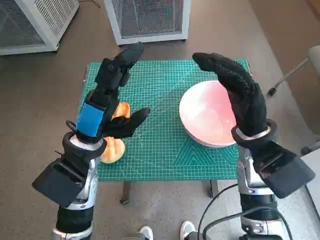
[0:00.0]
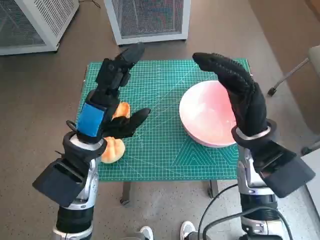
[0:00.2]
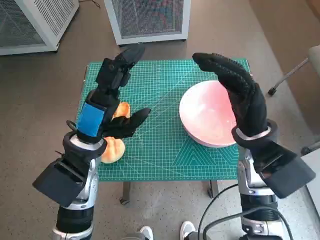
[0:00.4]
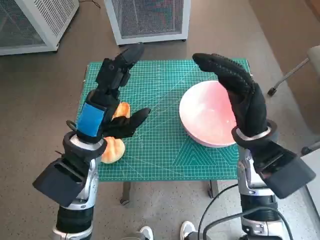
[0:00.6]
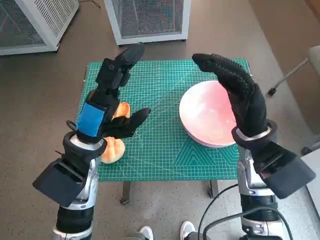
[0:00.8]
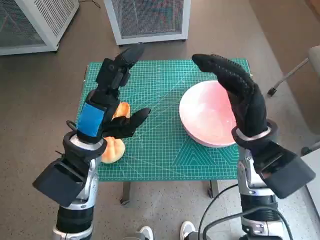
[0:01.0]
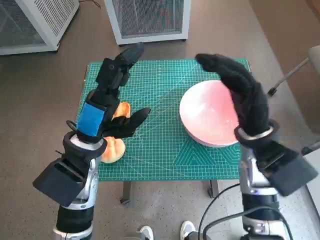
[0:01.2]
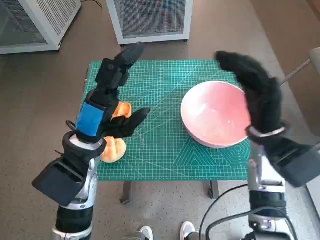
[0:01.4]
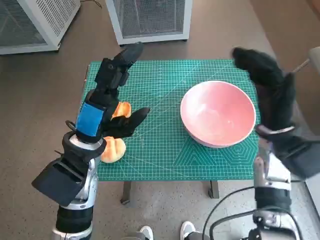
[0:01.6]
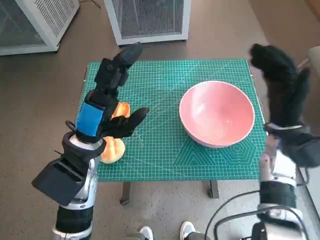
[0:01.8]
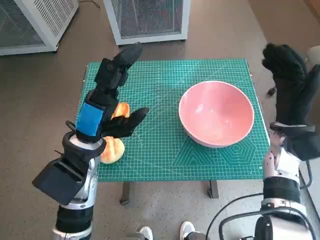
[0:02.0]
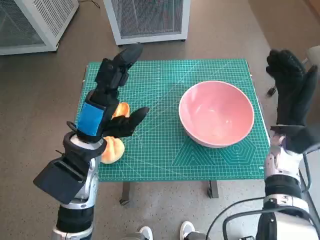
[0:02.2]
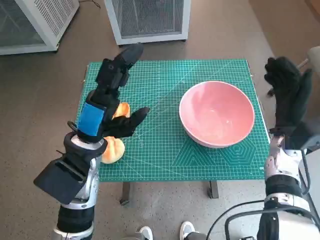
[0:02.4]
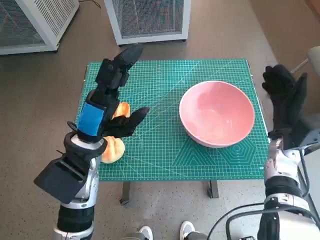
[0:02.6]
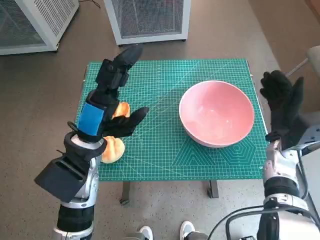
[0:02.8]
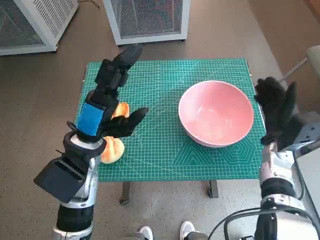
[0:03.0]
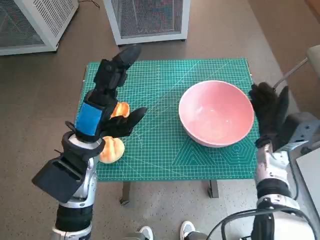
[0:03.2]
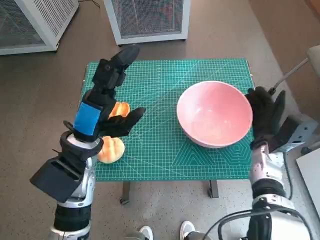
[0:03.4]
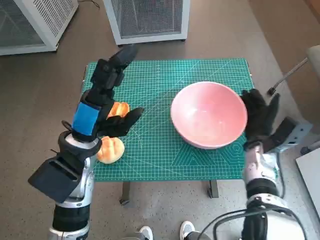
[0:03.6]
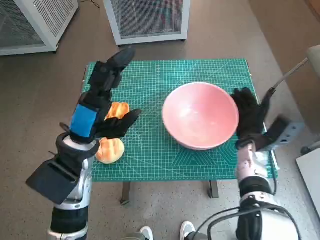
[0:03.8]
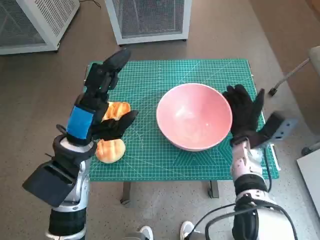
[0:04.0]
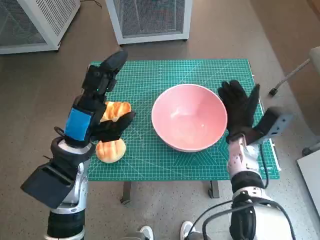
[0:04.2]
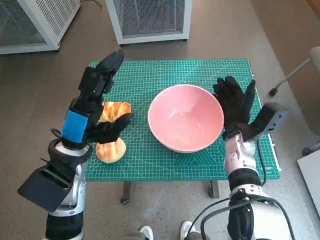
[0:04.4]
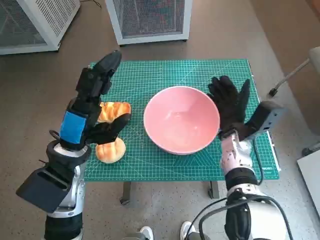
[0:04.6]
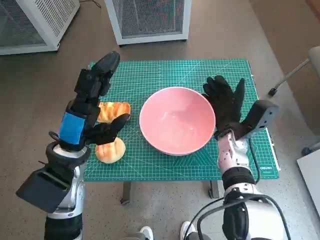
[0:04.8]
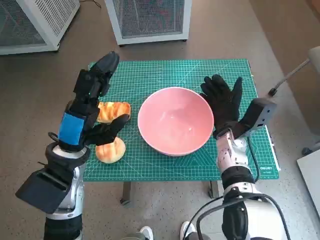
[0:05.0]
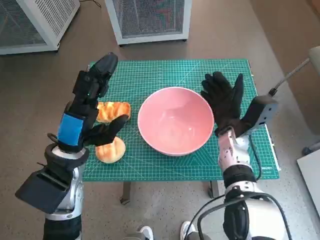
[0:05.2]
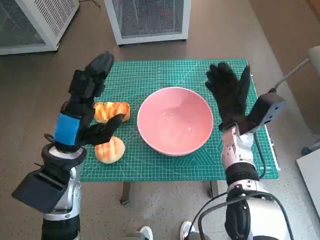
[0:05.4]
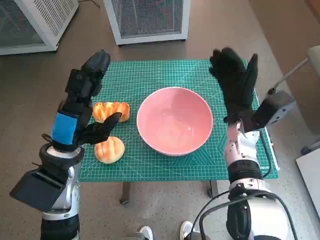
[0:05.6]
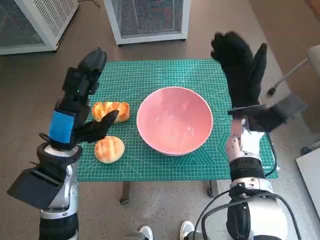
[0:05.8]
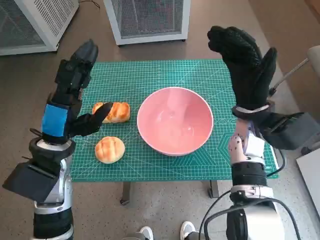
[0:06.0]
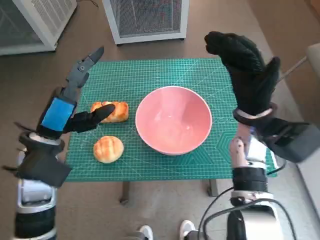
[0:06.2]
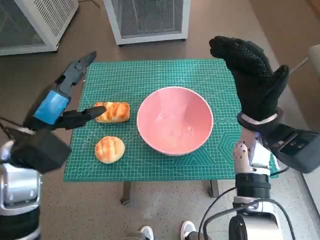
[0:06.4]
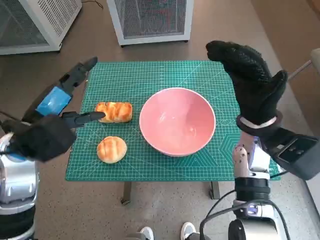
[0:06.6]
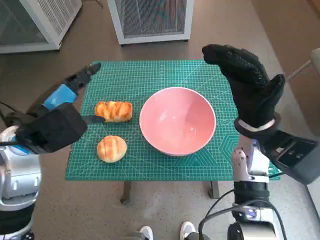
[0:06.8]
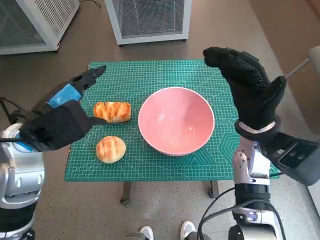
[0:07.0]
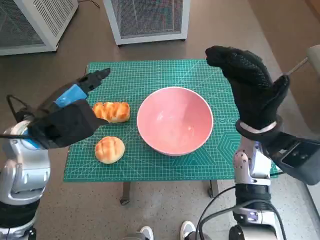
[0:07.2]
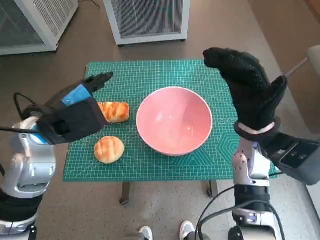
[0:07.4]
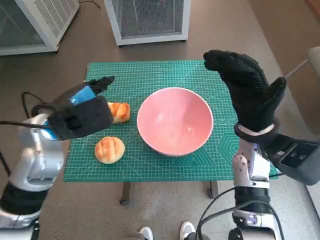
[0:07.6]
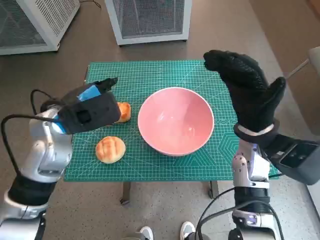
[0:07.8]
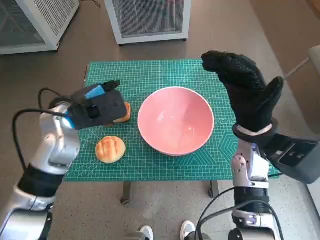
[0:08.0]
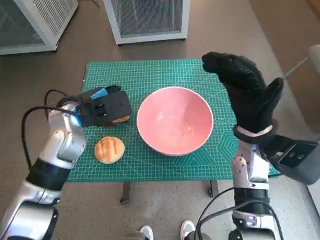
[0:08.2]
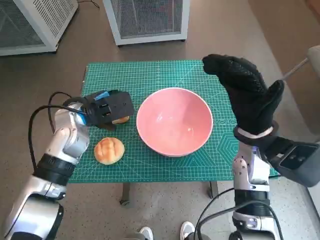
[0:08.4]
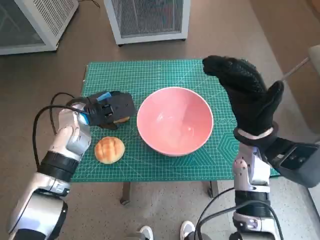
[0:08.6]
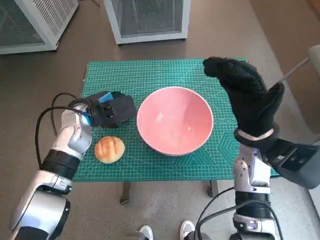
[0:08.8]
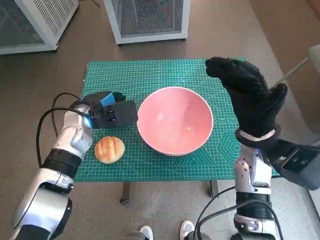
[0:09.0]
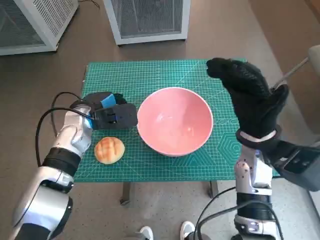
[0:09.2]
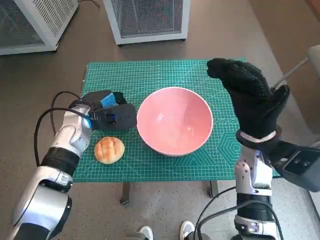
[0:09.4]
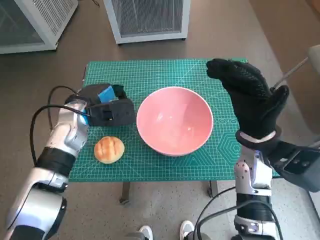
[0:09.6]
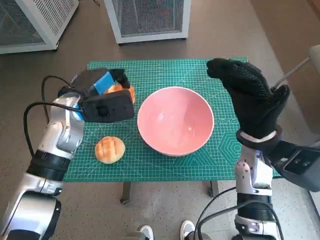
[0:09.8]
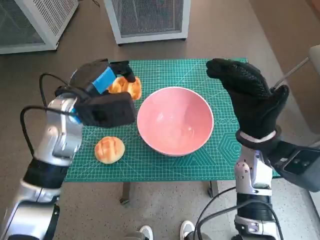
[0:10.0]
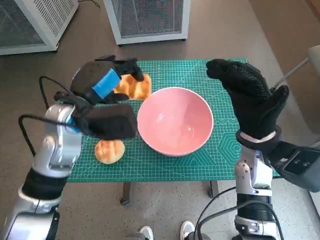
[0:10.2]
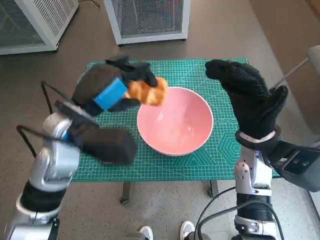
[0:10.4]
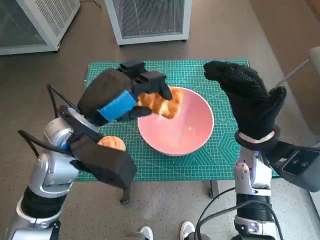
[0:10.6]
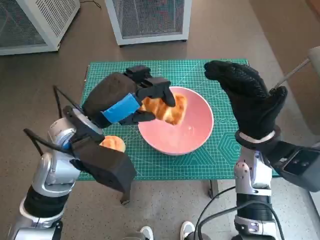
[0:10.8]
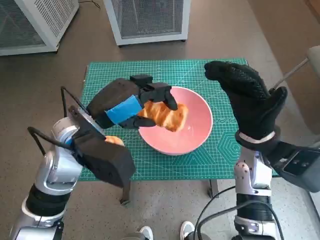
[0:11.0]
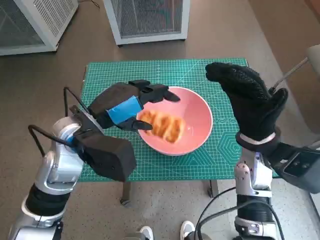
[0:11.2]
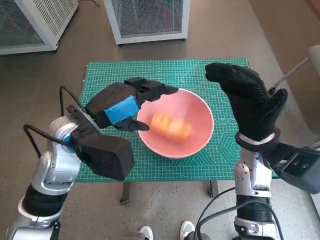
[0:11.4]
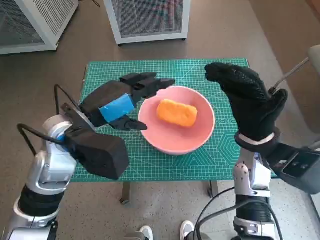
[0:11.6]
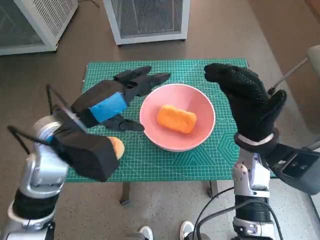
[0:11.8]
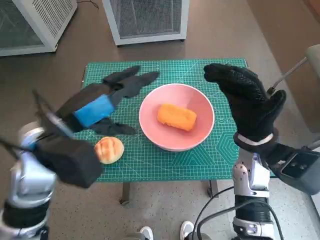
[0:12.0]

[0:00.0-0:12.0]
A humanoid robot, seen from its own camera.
Task of the whole recording: Push the bowl into the center of the table and put the bread into the bowl.
Step, 0:00.0 to 0:05.2: Move the pink bowl to the center of table with right hand.
Step, 0:05.4 to 0:09.2: Grasp the long bread with left hand.
Step, 0:09.4 to 0:11.2: Place the long bread in pink bowl with left hand.
0:01.6 to 0:03.0: The right hand moves downward, some 10 cm.
0:03.0 to 0:04.4: The right hand travels to the left by some 10 cm.
0:04.4 to 0:06.0: The right hand is displaced upward by about 10 cm.
0:06.0 to 0:07.6: The left hand ends up roughly 5 cm from where it was.
0:07.6 to 0:09.0: The left hand heads downward and forward, covering about 10 cm.
0:09.0 to 0:10.4: The left hand moves upward and backward, roughly 10 cm.

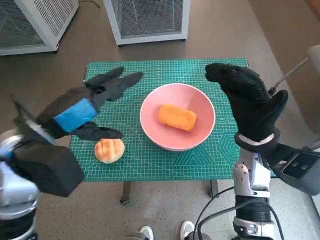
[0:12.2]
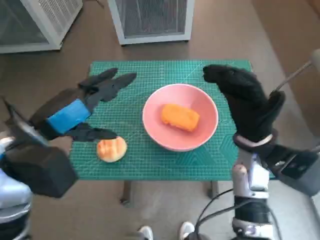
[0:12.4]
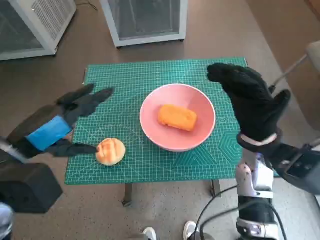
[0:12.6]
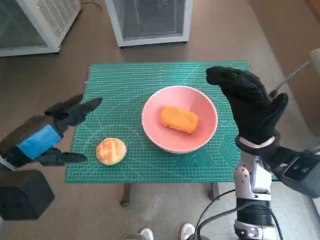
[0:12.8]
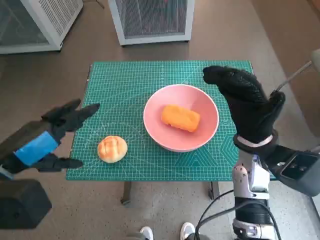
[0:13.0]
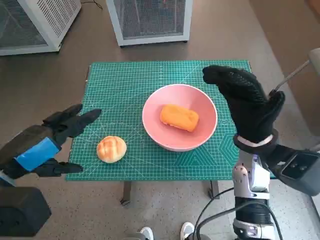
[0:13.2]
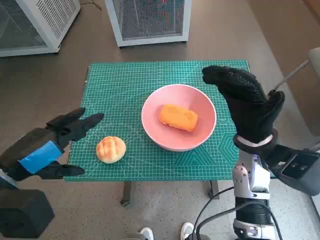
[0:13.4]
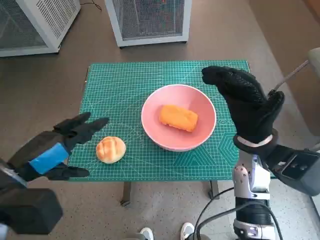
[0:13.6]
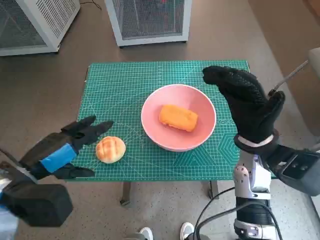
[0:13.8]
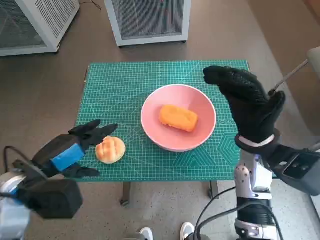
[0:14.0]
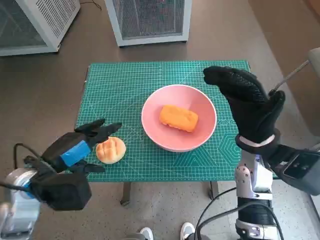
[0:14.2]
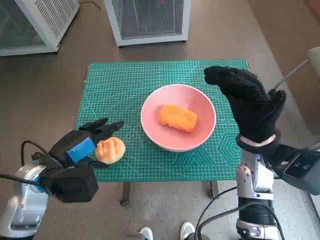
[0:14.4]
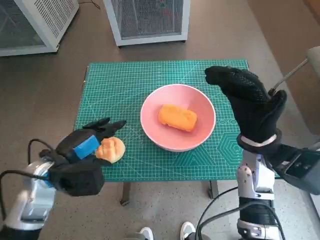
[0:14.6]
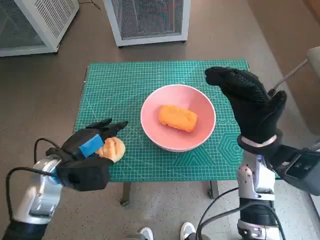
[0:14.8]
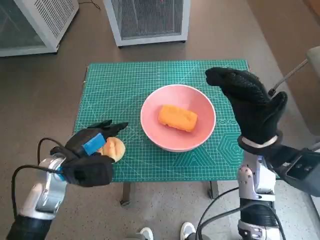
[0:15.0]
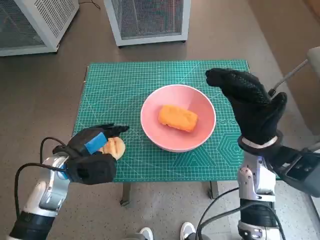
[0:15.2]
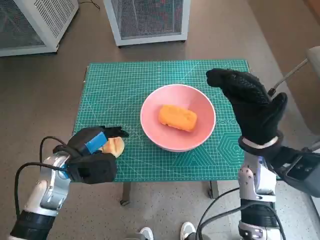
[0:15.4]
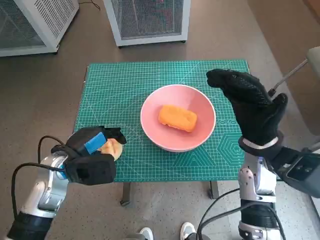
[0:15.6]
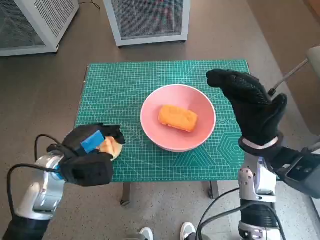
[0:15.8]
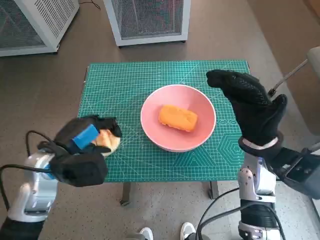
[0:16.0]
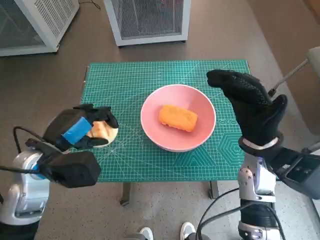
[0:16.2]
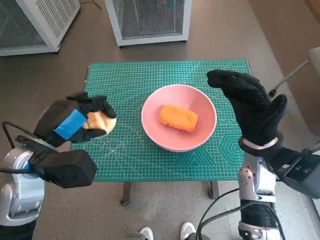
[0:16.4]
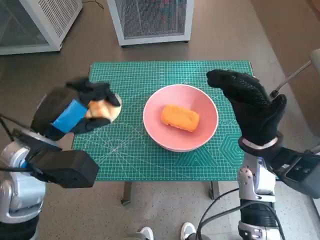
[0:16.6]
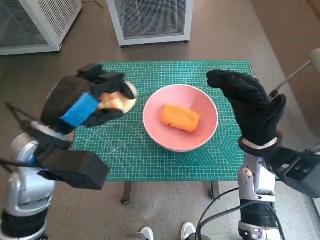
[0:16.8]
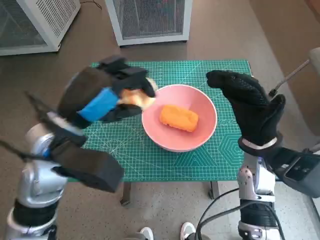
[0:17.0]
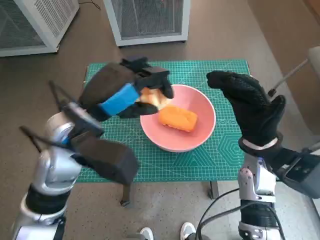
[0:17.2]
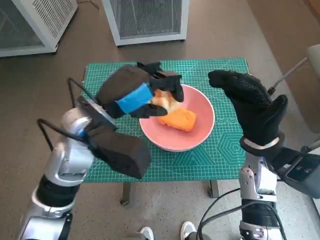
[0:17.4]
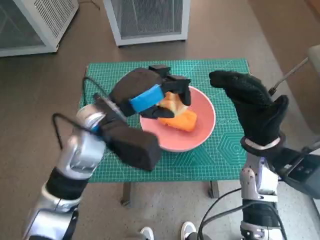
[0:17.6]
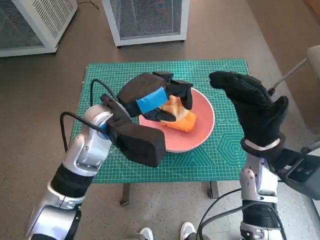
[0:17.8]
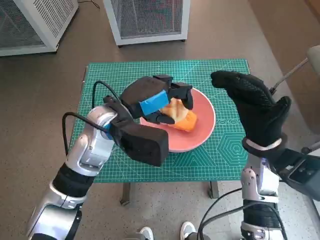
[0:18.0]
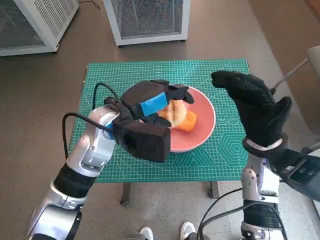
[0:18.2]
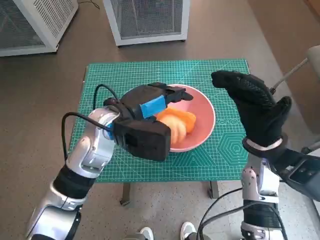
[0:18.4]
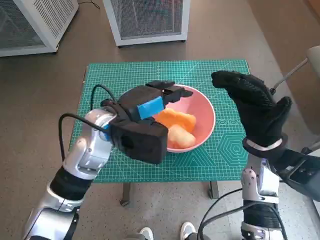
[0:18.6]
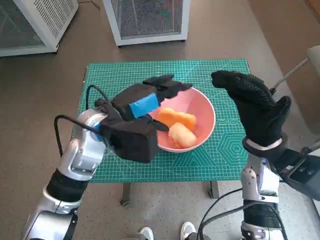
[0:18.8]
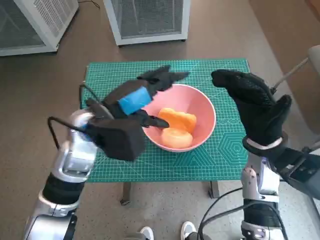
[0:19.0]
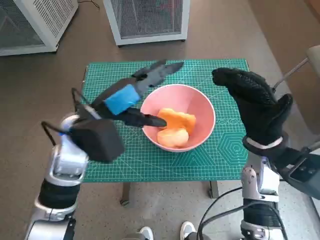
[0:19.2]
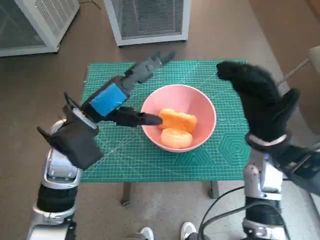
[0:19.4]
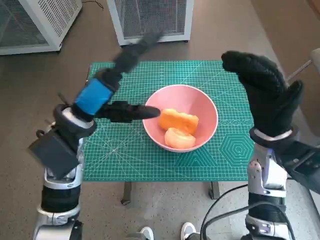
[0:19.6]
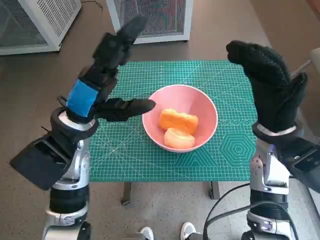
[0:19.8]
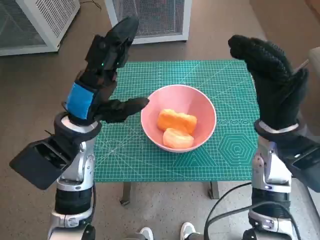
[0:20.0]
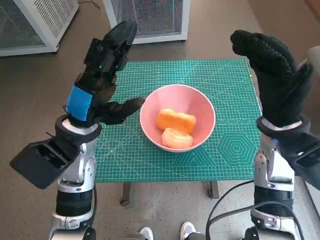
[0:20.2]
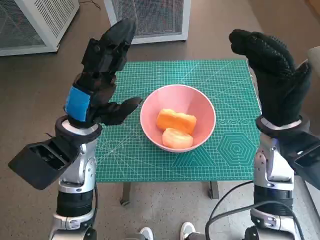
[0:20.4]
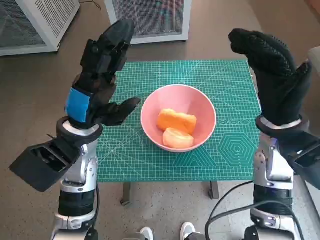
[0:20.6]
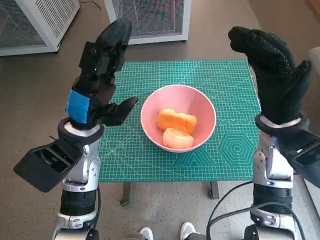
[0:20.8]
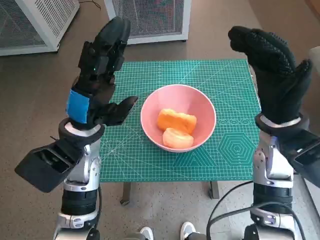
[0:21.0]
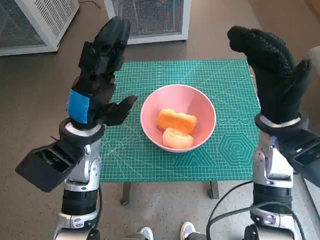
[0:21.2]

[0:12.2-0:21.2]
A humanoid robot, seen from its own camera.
Task of the whole recording: Push the bowl into the center of the table and put the bread into the bowl.
Step, 0:12.2 to 0:15.4: Grasp the round bread with left hand.
Step, 0:15.8 to 0:18.4: Place the round bread in pink bowl with left hand.
0:12.2 to 0:13.8: The left hand goes approximately 5 cm backward and downward.
0:13.8 to 0:15.2: The left hand travels downward and forward by approximately 10 cm.
0:15.2 to 0:16.6: The left hand heads upward, covering approximately 10 cm.
0:16.6 to 0:18.2: The left hand heads to the right and forward, covering some 15 cm.
0:18.2 to 0:19.8: The left hand goes some 5 cm to the left.

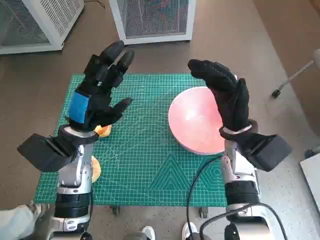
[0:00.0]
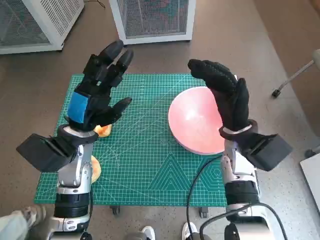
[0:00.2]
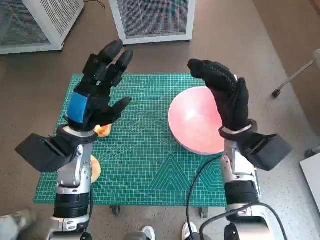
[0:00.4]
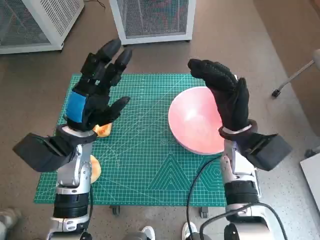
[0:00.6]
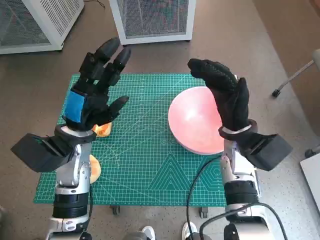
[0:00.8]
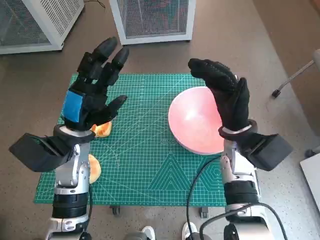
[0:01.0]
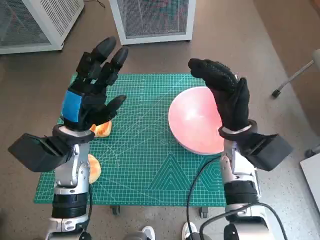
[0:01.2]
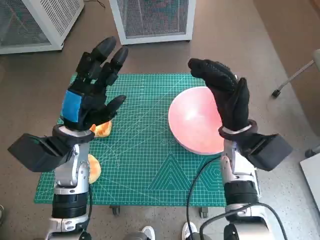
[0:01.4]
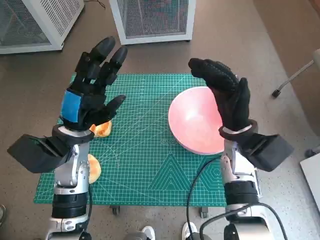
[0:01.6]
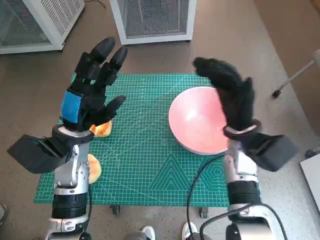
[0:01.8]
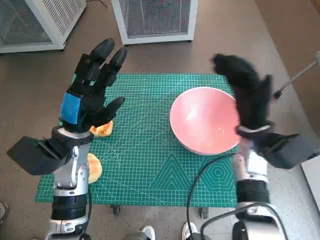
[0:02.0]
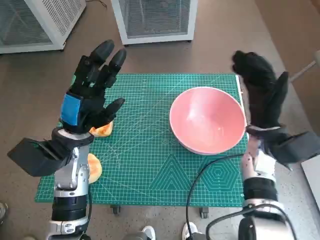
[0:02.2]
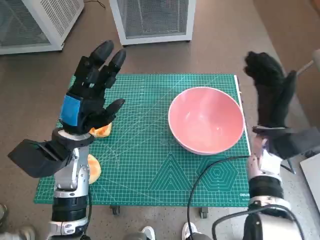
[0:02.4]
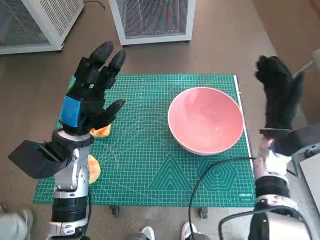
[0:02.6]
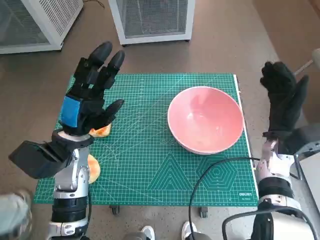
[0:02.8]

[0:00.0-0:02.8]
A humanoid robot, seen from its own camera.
Task of the whole recording: Push the bowl into the center of the table and put the bread into the bowl.
0:01.4 to 0:02.8: The right hand is displaced to the right by some 10 cm.
